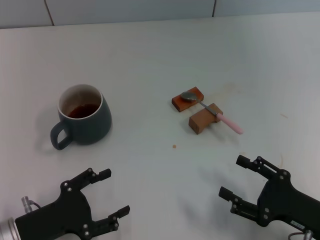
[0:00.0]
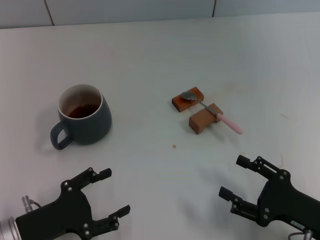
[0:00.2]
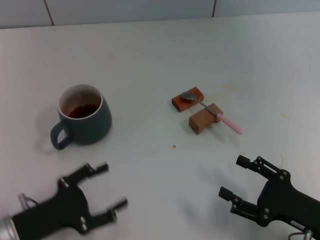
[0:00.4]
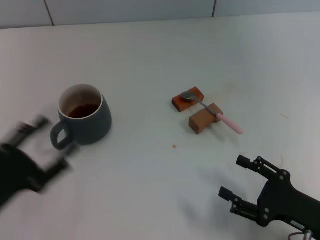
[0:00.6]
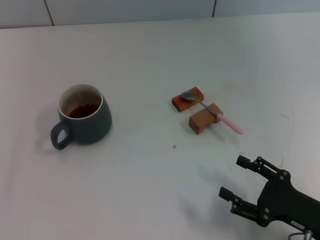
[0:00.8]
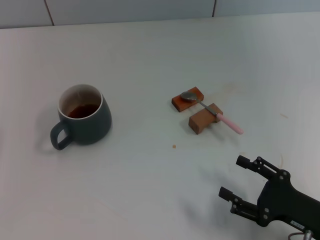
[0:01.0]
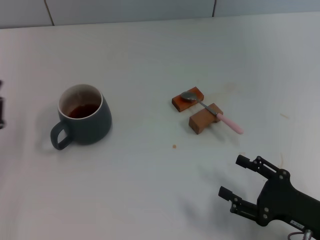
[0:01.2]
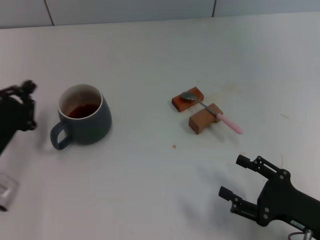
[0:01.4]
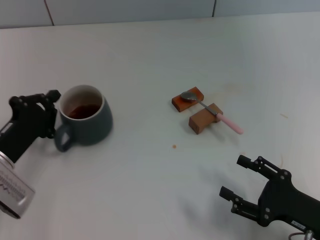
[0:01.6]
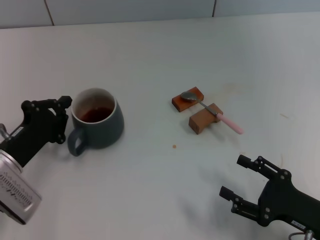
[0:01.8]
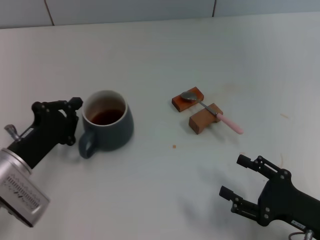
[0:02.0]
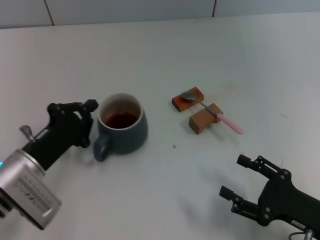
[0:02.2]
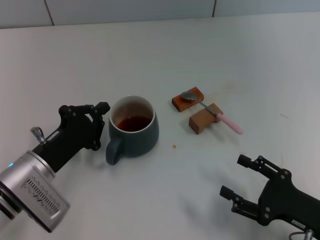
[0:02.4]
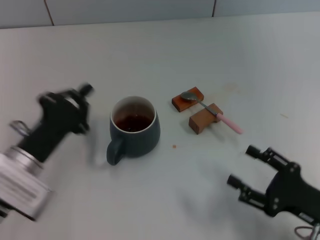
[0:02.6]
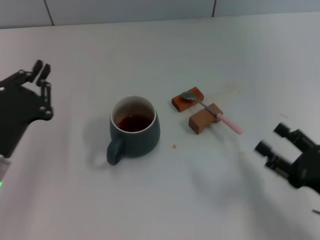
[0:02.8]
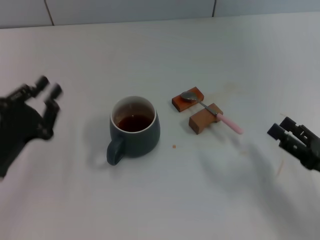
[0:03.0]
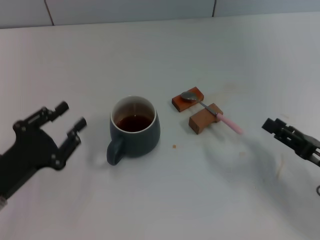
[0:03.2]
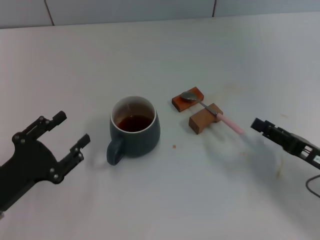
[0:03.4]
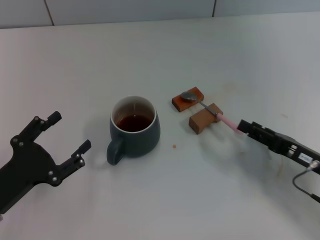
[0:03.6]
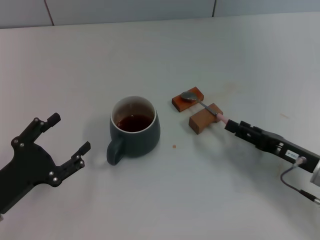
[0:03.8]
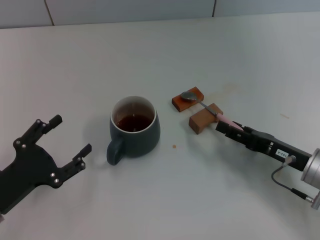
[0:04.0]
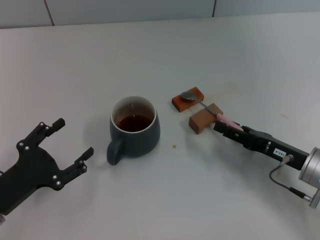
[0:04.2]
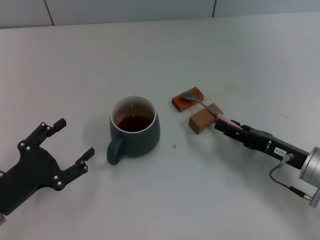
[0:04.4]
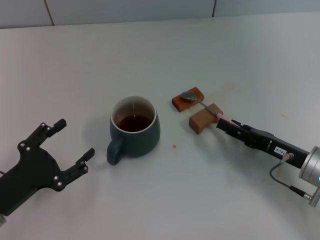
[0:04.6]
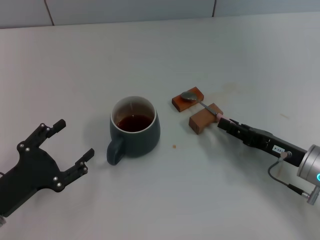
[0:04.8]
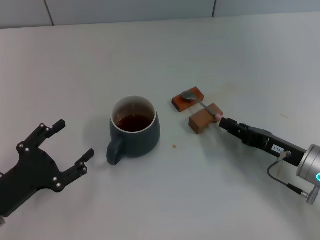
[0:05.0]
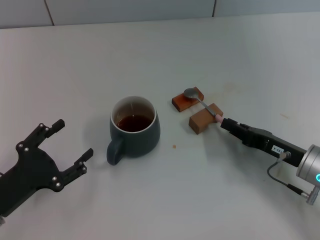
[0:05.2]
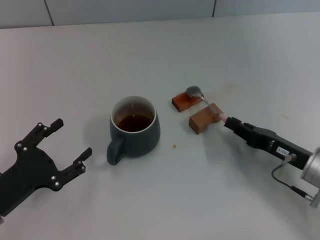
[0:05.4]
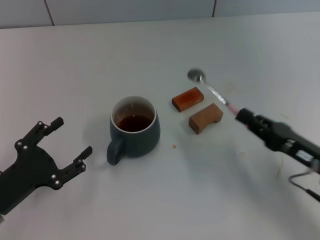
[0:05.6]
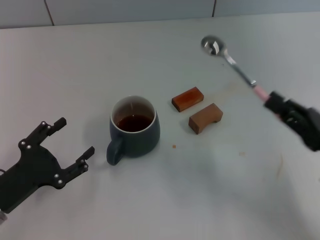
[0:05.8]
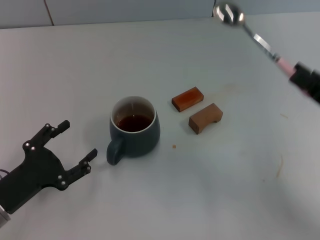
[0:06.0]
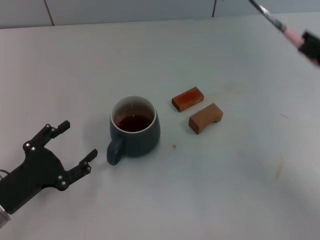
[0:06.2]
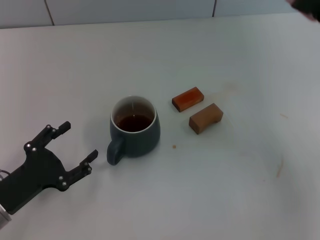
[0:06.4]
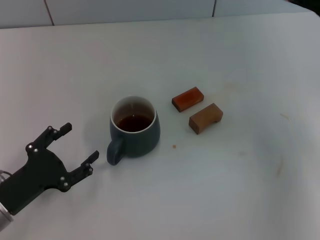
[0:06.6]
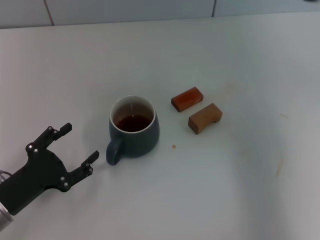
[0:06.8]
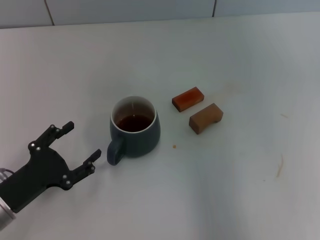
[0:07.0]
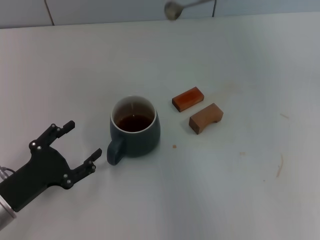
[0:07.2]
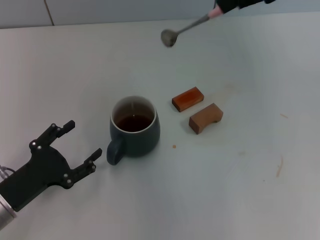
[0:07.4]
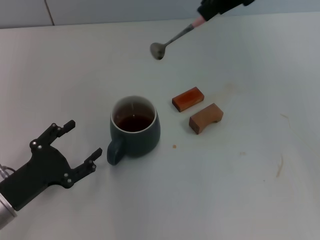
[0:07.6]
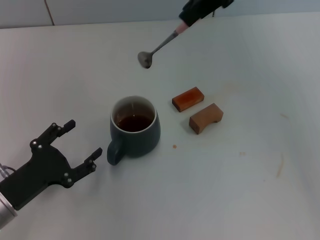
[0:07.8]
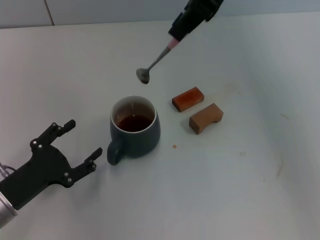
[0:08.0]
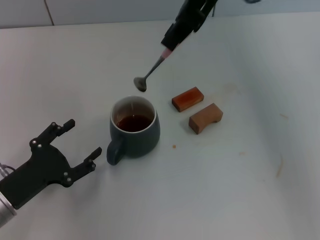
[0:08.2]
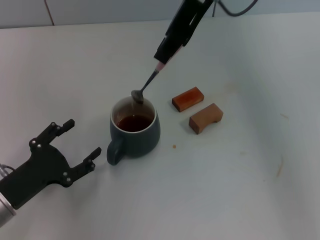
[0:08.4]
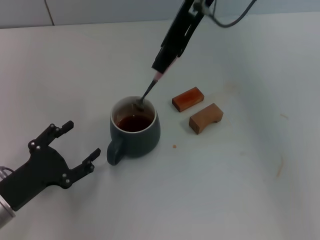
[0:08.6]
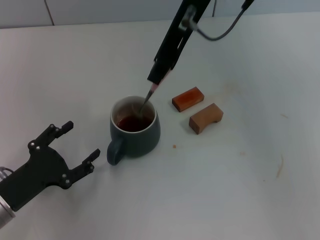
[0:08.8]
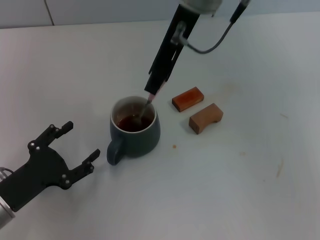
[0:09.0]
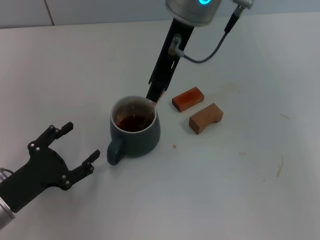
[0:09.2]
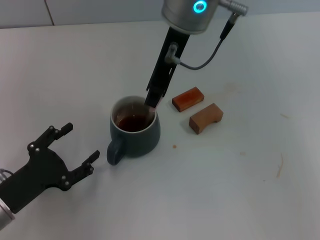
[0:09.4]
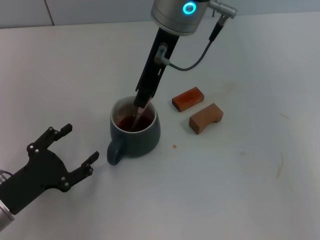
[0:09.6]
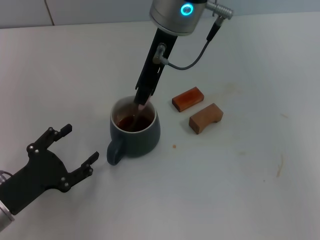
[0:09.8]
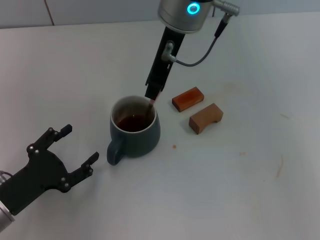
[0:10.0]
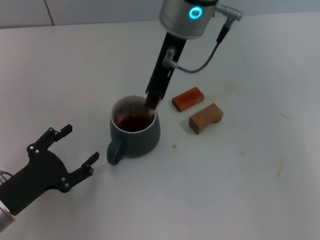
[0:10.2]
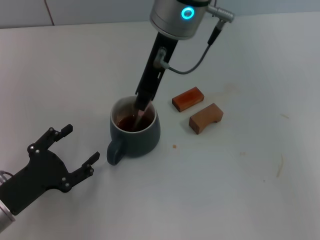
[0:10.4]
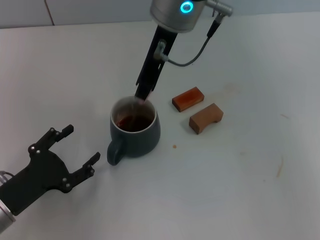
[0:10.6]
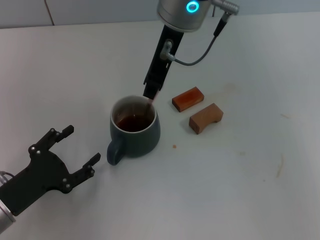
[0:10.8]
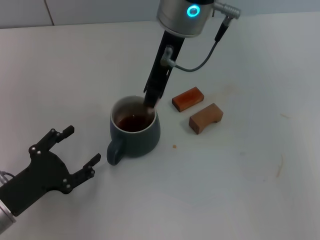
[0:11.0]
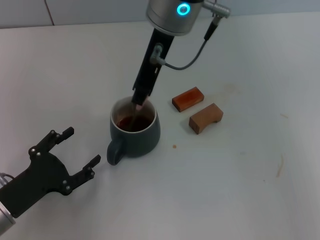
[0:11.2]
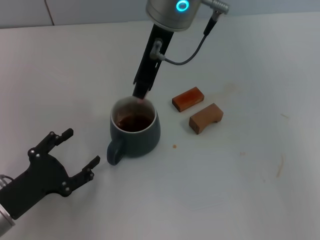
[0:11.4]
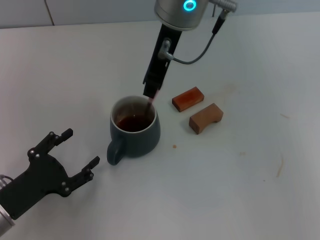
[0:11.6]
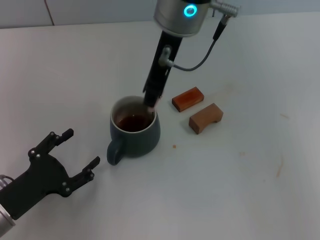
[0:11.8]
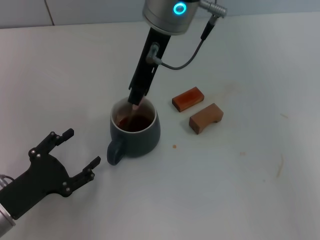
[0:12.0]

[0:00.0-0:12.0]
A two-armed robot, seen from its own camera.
Task of the whole recording: Move the grey cup to the center, lift the pink spoon, stir it three times in the cup, and put the spoon into the cup.
Step, 0:00.0 to 0:02.4: Move the cup with coffee to the center of view with the left gripper.
Step, 0:02.6 to 0:05.4: Pick up the spoon with the right gripper.
0:00.0 to 0:01.6: The left gripper travels forward by some 10 cm, and closes.
0:01.6 to 0:03.0: The right gripper shifts by about 5 cm.
0:03.0 to 0:04.4: The left gripper opens; the right gripper goes some 5 cm forward.
0:04.4 to 0:06.0: The right gripper shifts roughly 10 cm upward, and closes its fingers.
0:06.0 to 0:07.6: The right gripper heads upward, to the left and forward, covering roughly 35 cm.
0:07.6 to 0:09.0: The right gripper shifts roughly 15 cm to the left and downward.
0:09.0 to 0:12.0: The grippers stay close to where they were, moving slightly.

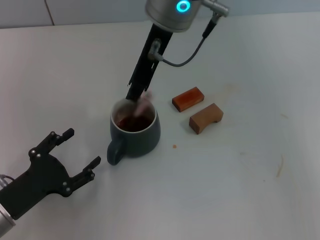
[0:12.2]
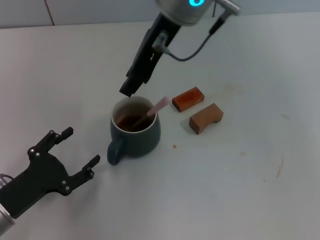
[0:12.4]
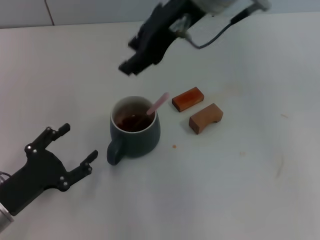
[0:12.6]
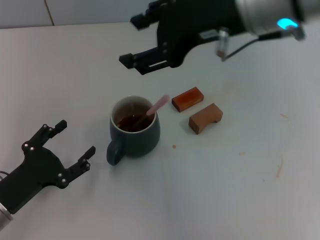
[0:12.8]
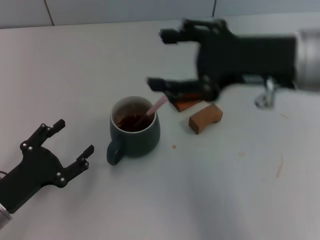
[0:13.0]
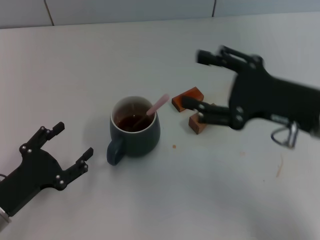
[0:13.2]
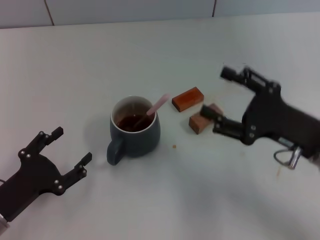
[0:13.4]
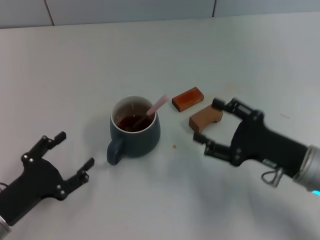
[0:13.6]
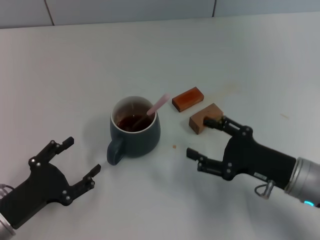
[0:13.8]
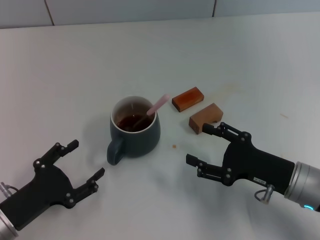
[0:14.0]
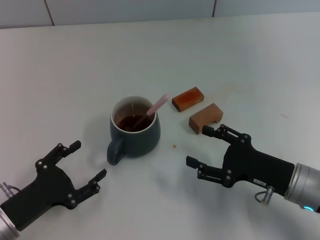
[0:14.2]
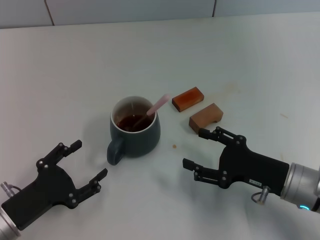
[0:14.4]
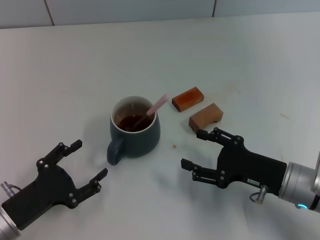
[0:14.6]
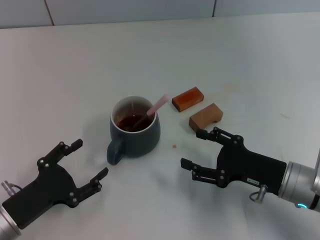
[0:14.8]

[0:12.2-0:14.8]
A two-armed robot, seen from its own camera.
Task of the whole recording: Move the grey cup to the center, lift the pink spoon, stir it three times in the cup, and put the spoon into the cup.
0:12.2 to 0:13.4: The right gripper goes some 30 cm to the right, downward and backward, and opens its fingers.
0:13.4 to 0:14.8: The right gripper heads downward, covering approximately 10 cm.
